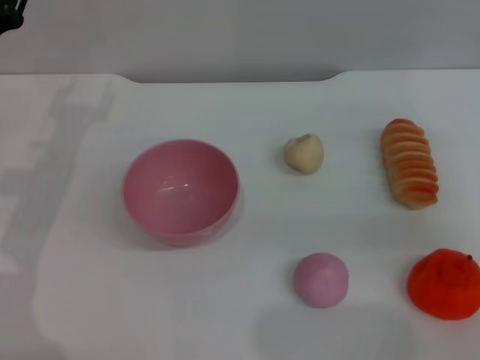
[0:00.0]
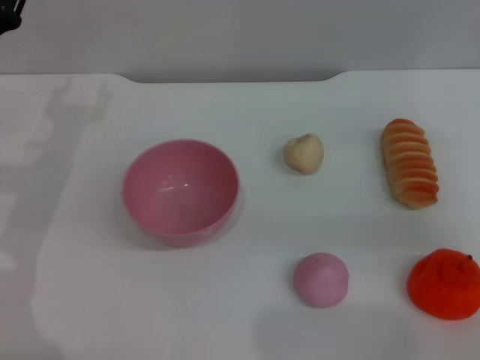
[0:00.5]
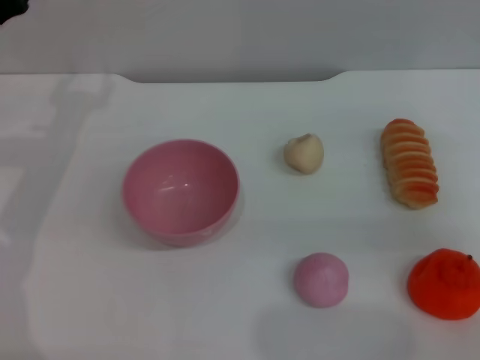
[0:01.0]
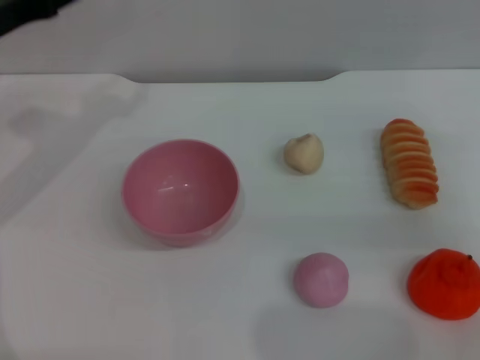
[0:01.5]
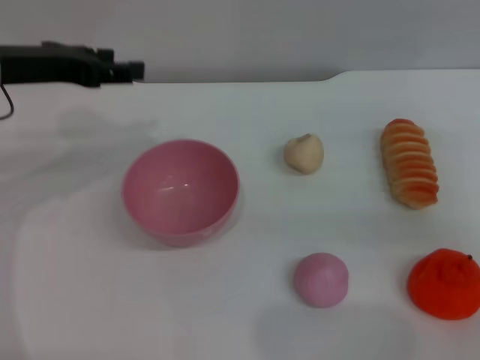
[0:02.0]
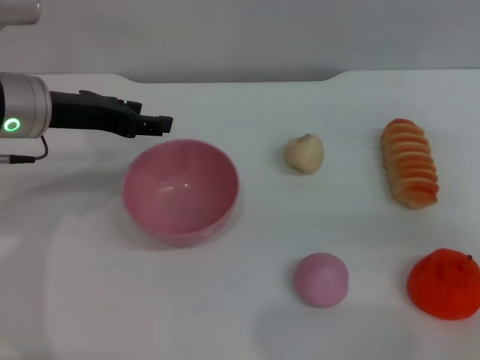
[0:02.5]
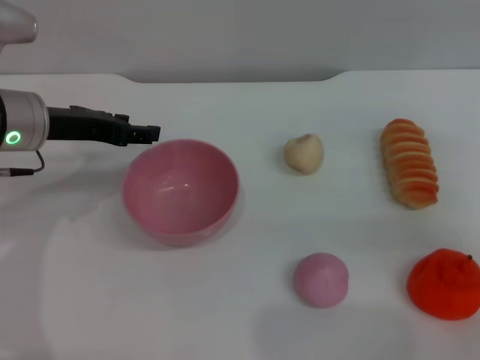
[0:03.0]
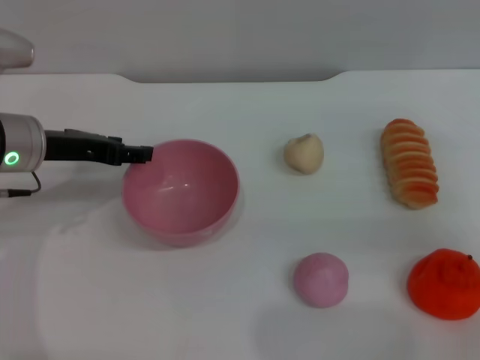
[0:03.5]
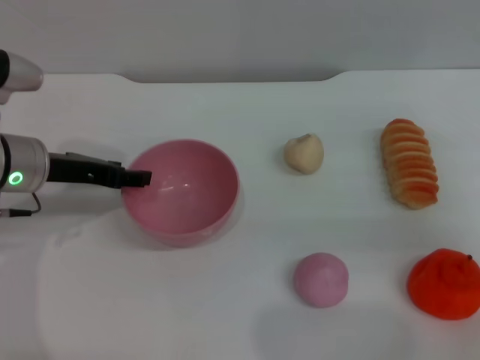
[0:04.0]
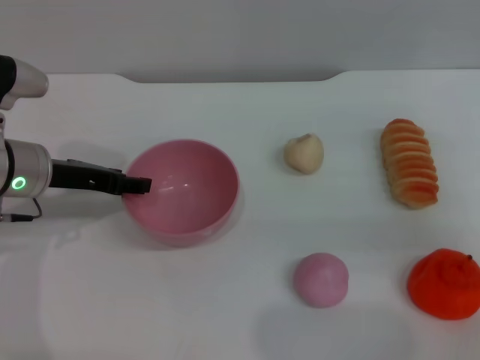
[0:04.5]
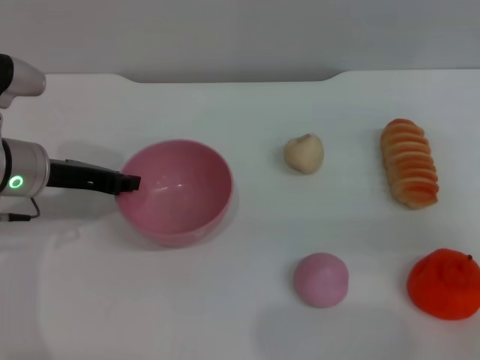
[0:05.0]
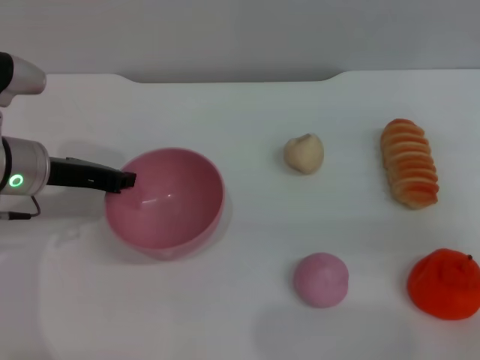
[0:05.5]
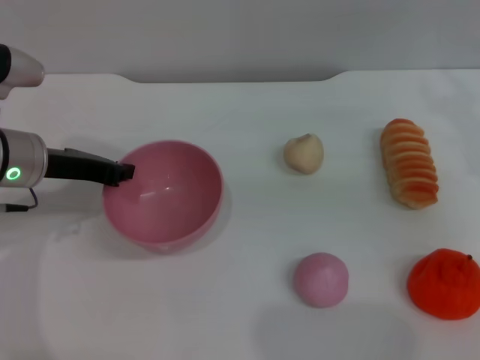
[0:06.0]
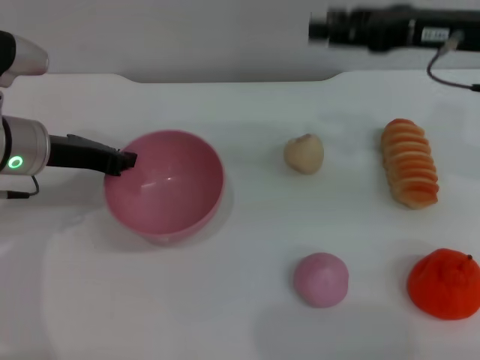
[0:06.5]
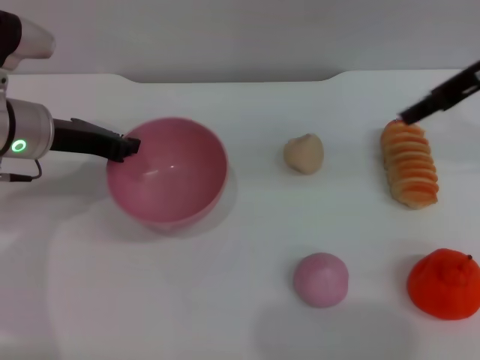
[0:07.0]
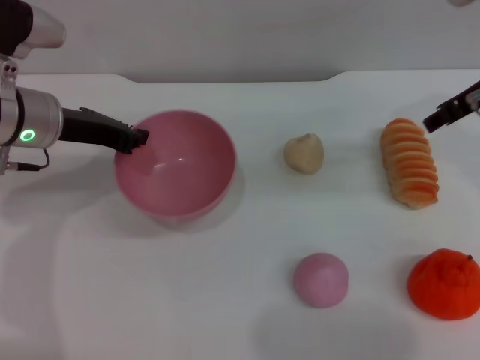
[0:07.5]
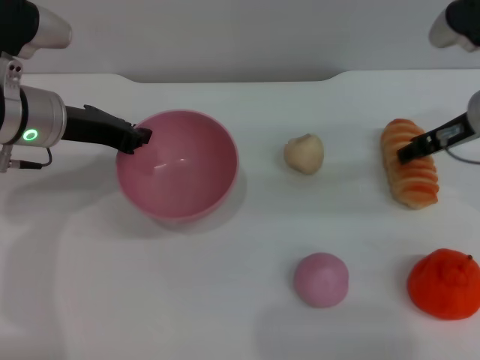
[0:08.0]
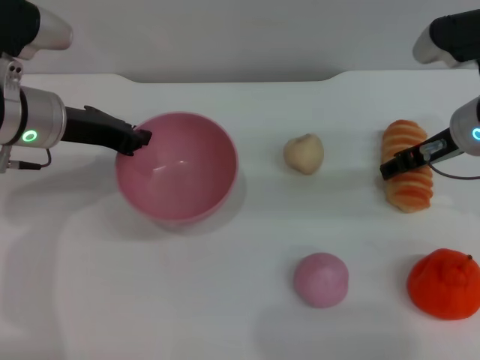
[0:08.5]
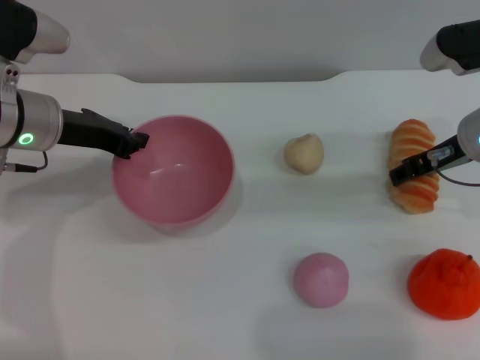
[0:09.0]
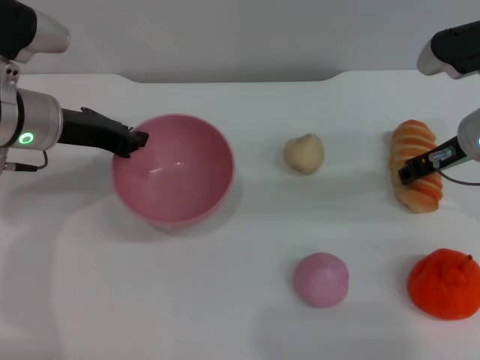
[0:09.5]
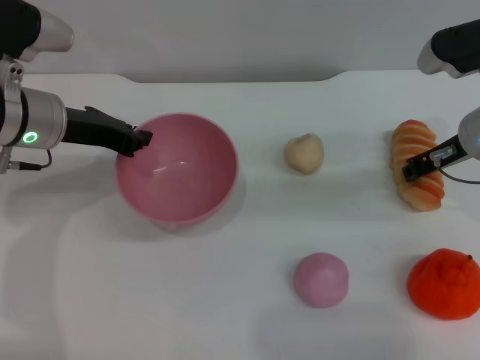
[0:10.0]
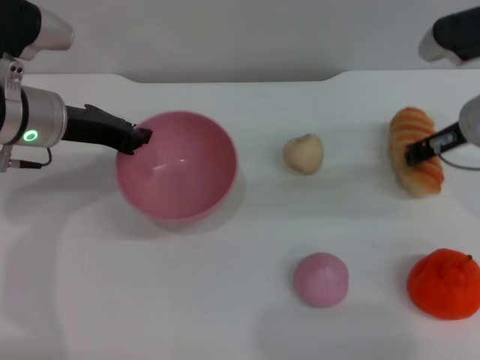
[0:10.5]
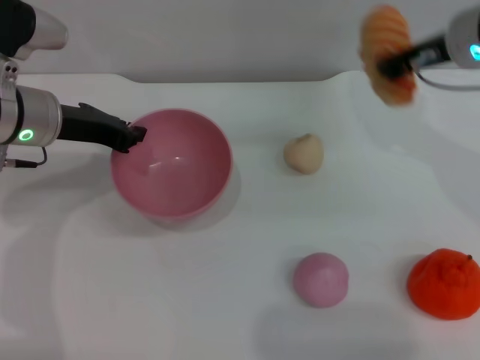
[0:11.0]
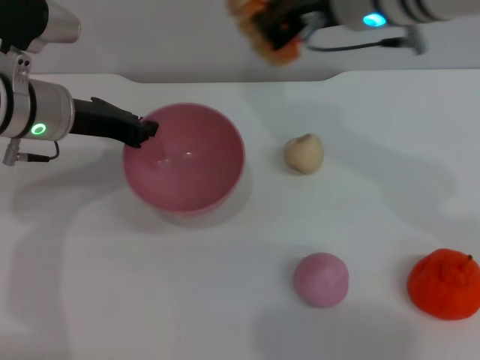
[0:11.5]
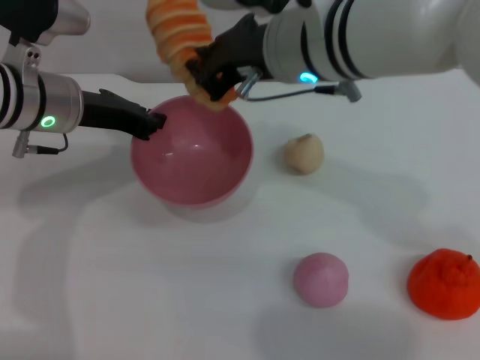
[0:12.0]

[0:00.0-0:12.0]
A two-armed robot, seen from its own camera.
Task of the whole recording: put the bread into the pink bowl and pour it out repeatedly.
Step, 0:00.0 to 0:07.0: Pick up the bowl with the left gripper.
Step, 0:07.5 to 0:10.5: Pick up the bread with the right gripper.
0:00.0 to 0:02.0: The left gripper goes approximately 10 cm upward.
0:02.0 to 0:04.0: The left gripper heads downward, covering about 10 cm.
0:04.0 to 0:06.0: The right gripper changes place by some 5 cm. Meanwhile the left gripper closes its fingers.
0:06.0 to 0:08.0: The right gripper is displaced to the left by roughly 5 cm, and reaches about 10 cm upward, then returns.
0:08.0 to 0:10.0: The grippers move only a little.
0:10.0 to 0:12.0: The right gripper is displaced to the left and upward by roughly 20 cm.

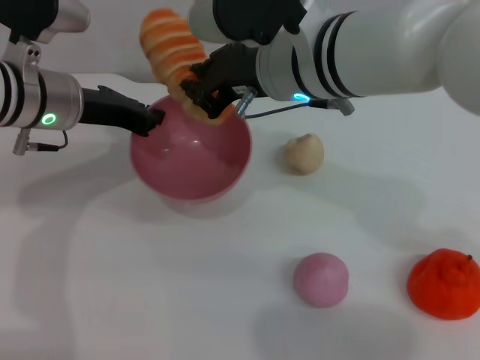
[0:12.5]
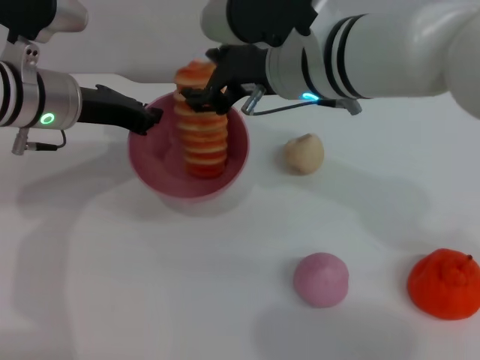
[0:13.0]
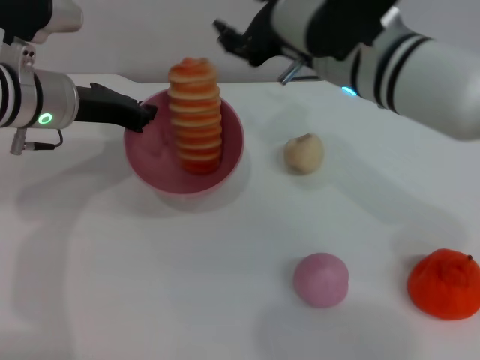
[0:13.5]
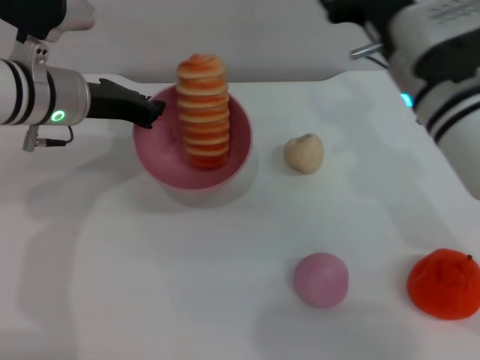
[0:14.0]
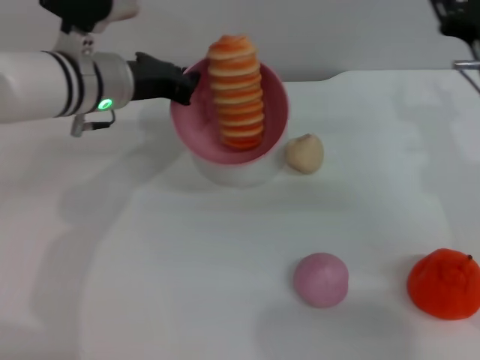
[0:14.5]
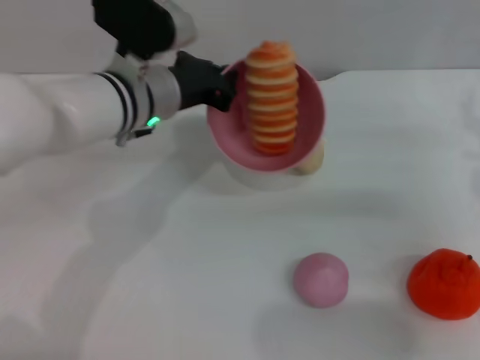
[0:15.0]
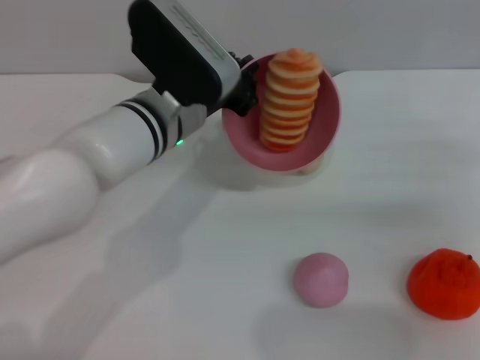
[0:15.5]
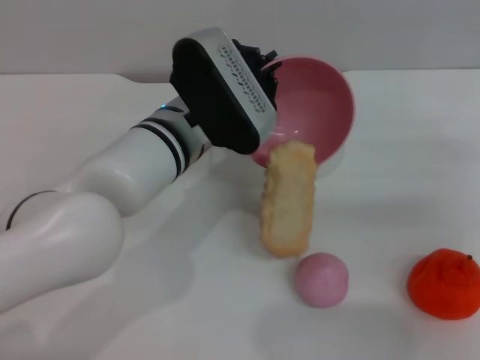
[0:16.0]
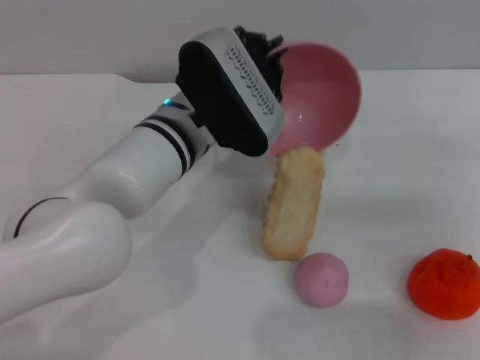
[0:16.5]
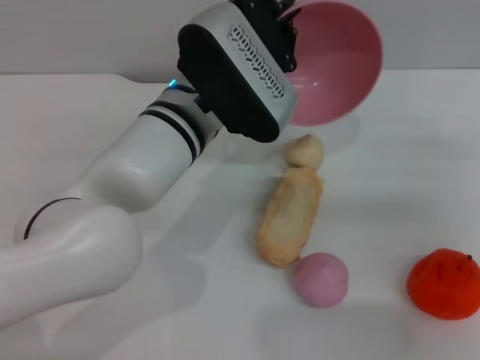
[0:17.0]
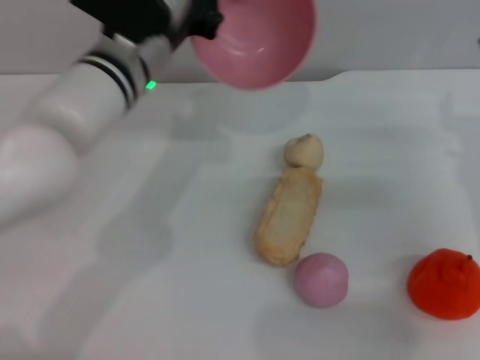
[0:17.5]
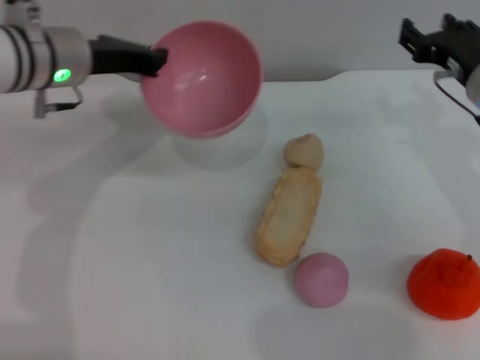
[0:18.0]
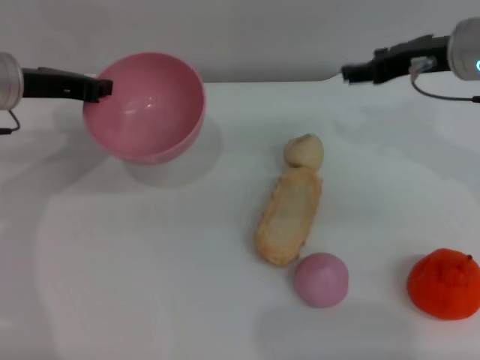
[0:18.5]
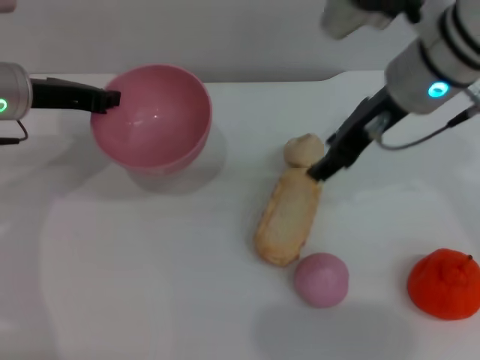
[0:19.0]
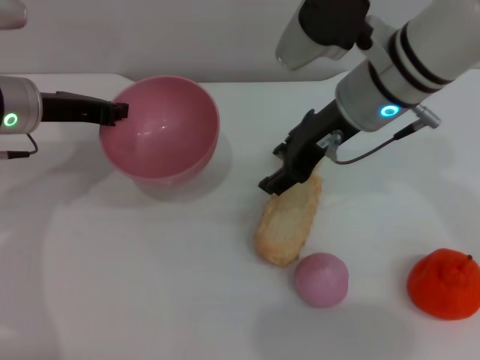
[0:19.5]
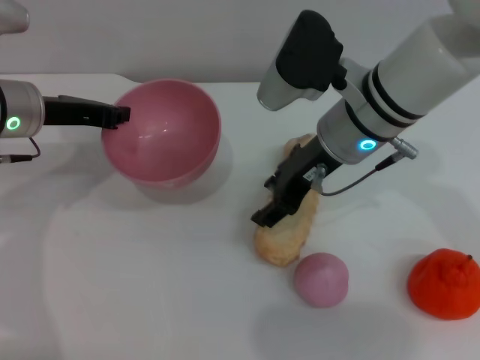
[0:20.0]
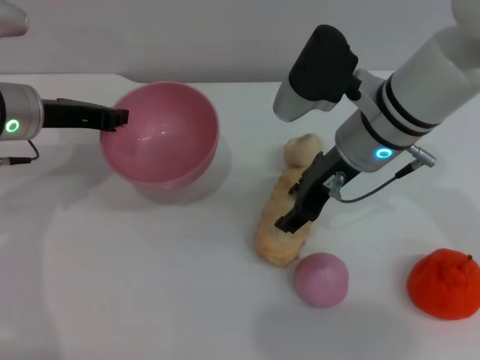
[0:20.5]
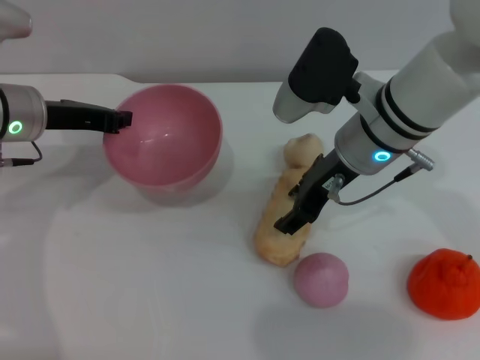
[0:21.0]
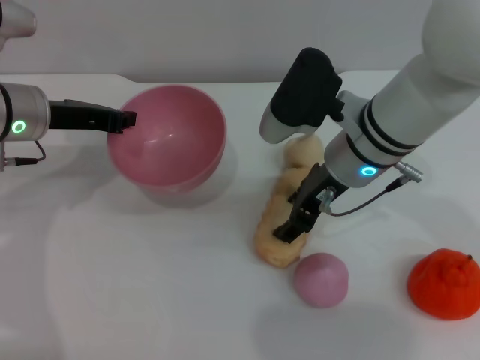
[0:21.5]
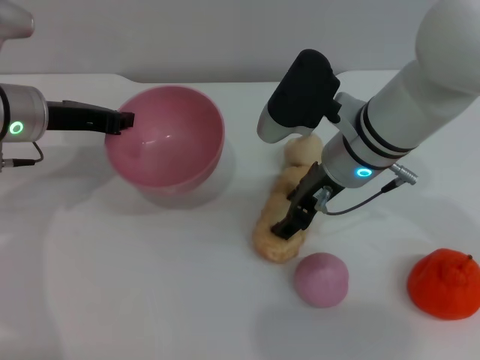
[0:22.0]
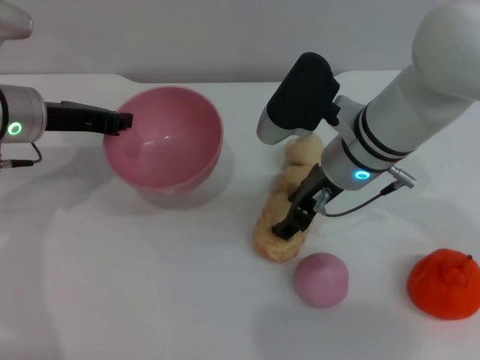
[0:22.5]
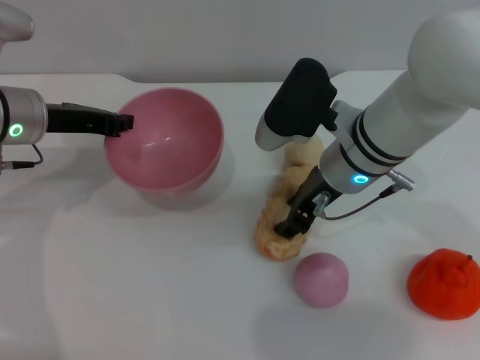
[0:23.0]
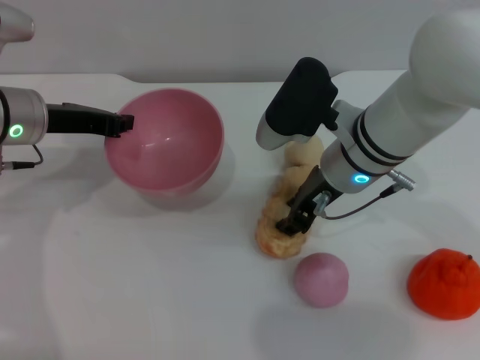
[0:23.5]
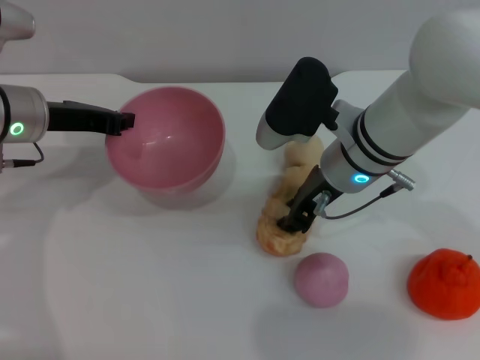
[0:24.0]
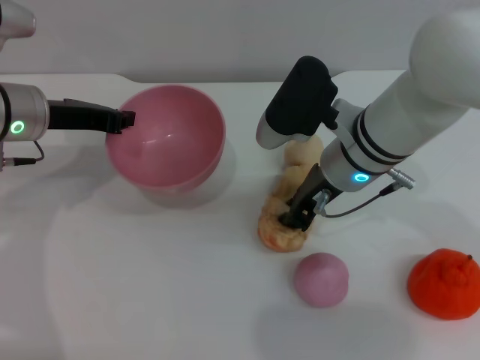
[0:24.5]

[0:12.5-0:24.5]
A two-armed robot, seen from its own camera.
Task of the whole recording: put the bread into the pink bowl and pour it out repeatedly.
Step, 0:13.5 to 0:17.0: Pour the bread out of the bowl.
0:12.5 to 0:14.5: The right gripper moves to the right and downward, roughly 20 cm, and opens up. The left gripper travels to the right by some 5 cm.
0:14.5 to 0:16.5: The right gripper moves to the right, about 10 cm. The left gripper moves to the right and backward, some 10 cm.
0:16.5 to 0:18.5: The right gripper goes approximately 15 cm to the left, upward and forward. The left gripper goes some 20 cm to the left.
0:18.5 to 0:20.5: The right gripper heads to the left and downward, covering approximately 10 cm.
0:20.5 to 0:22.5: The grippers make only small movements.
0:22.5 to 0:24.5: The right gripper closes its fingers.

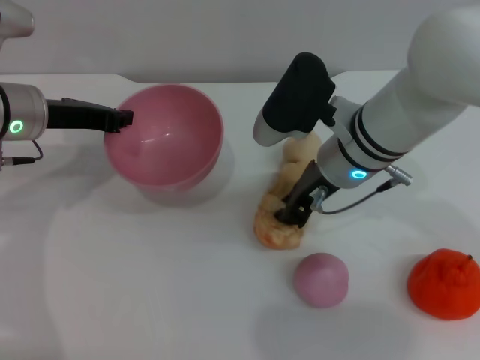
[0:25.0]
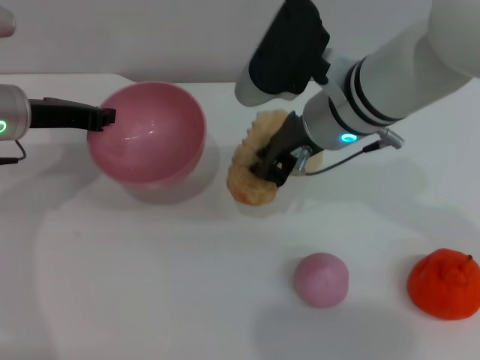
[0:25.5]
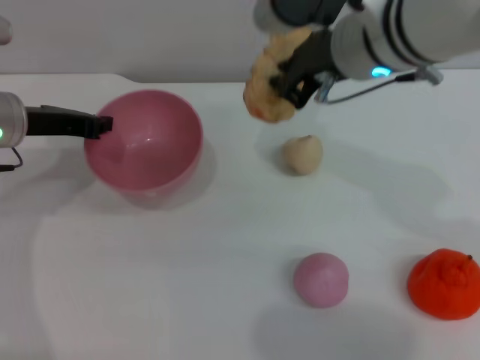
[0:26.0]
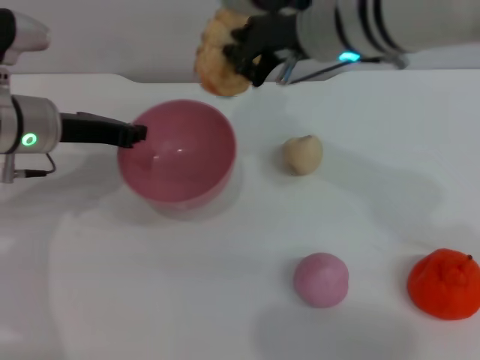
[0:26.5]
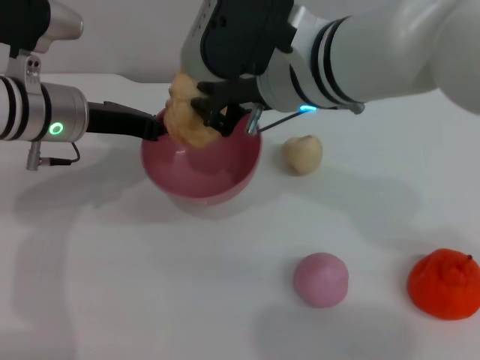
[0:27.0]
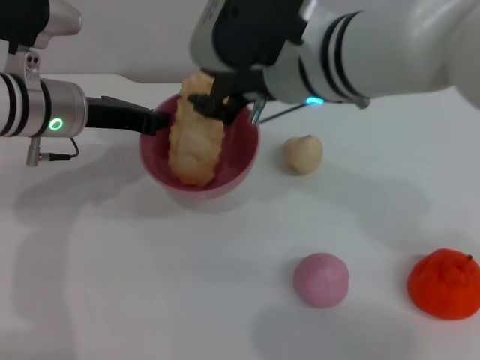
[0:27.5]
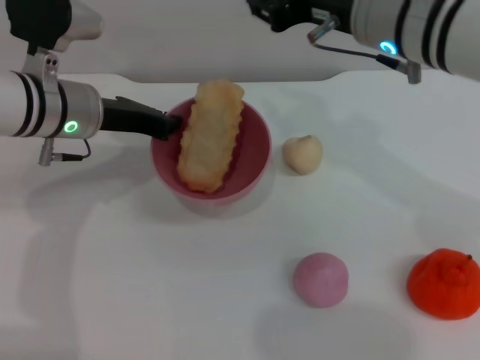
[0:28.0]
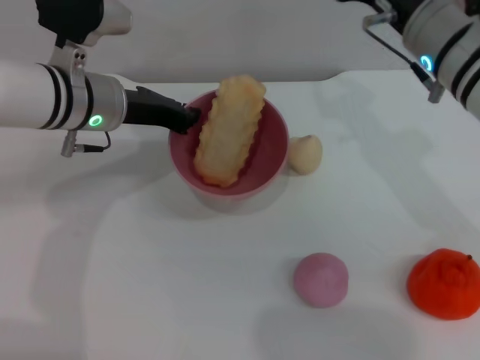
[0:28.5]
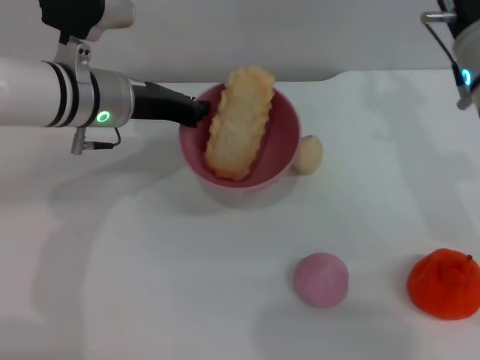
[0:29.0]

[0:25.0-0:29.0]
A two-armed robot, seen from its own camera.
Task of the whole recording: put the bread into the pink bowl and pour it out repeatedly.
Step, 0:26.0 to 0:27.5: Place the bread into the bowl.
0:25.0 to 0:27.0: The right gripper moves upward and to the left, some 10 cm.
0:27.0 to 0:29.0: The right gripper is displaced to the right by some 15 cm, and opens.
